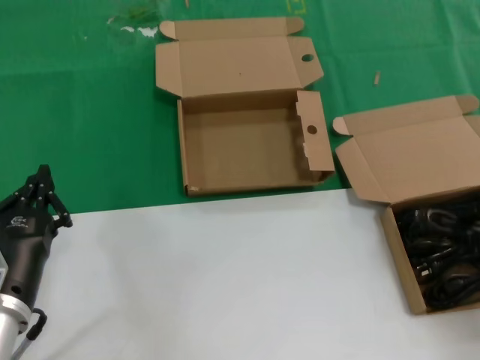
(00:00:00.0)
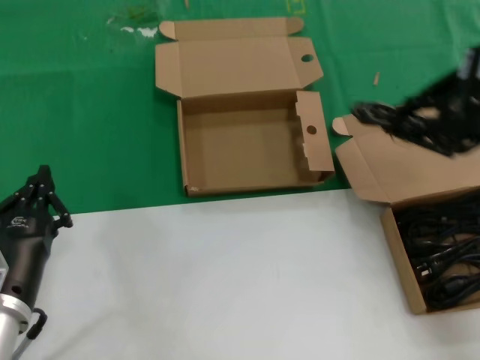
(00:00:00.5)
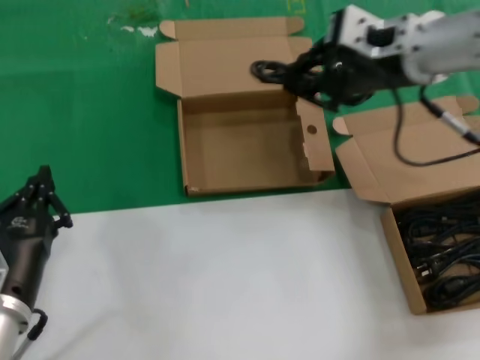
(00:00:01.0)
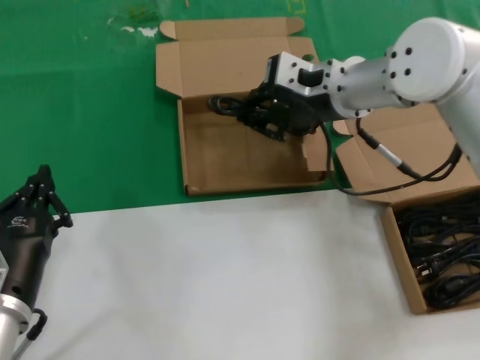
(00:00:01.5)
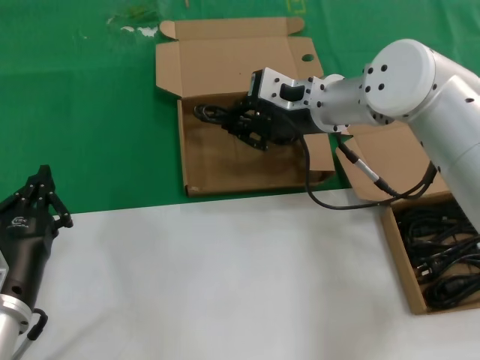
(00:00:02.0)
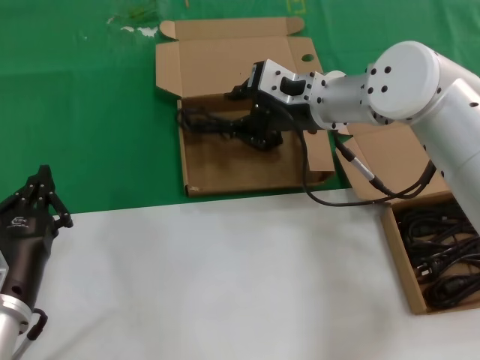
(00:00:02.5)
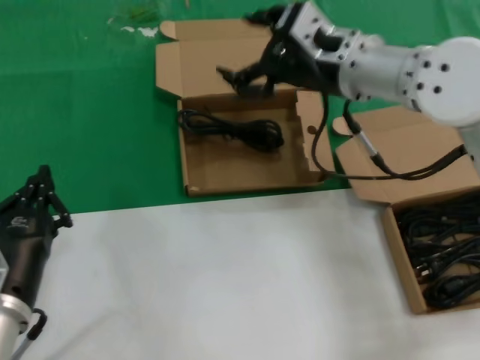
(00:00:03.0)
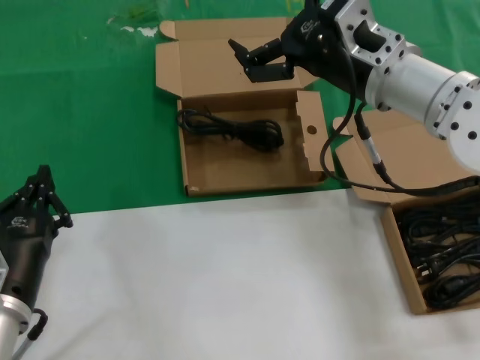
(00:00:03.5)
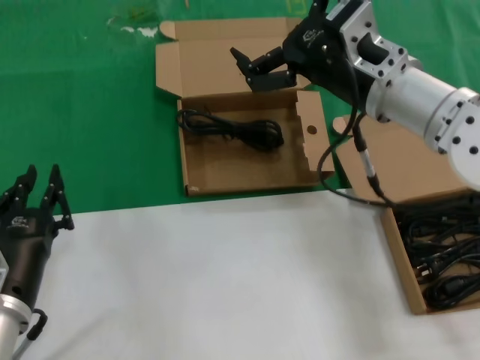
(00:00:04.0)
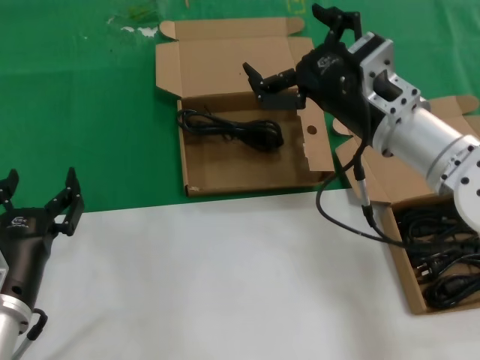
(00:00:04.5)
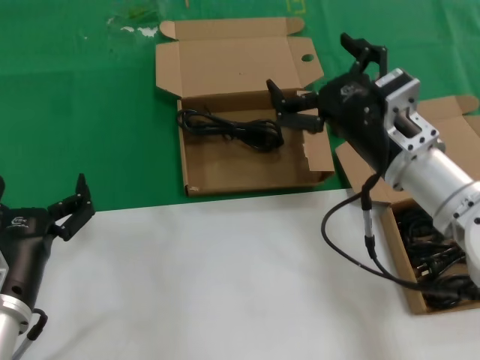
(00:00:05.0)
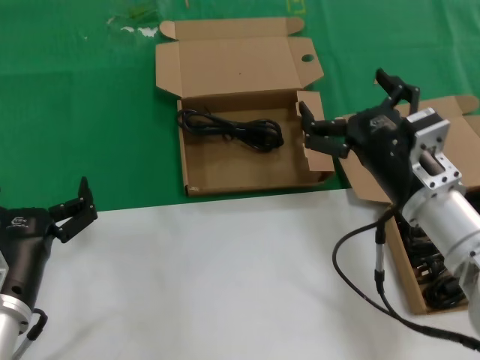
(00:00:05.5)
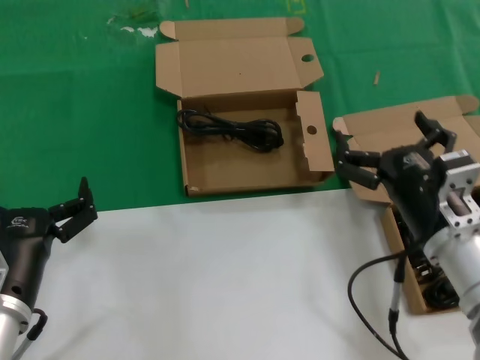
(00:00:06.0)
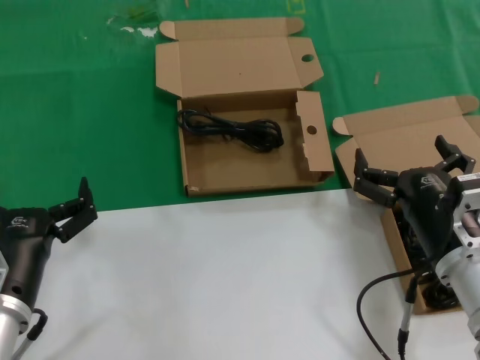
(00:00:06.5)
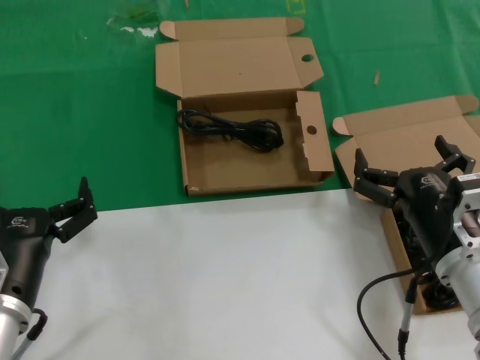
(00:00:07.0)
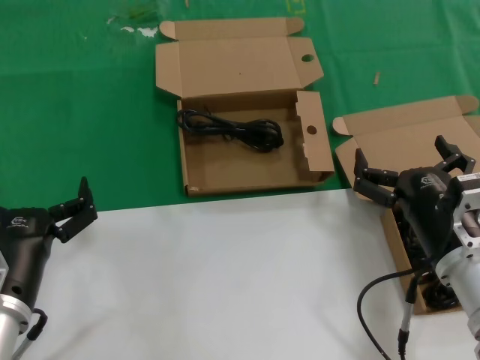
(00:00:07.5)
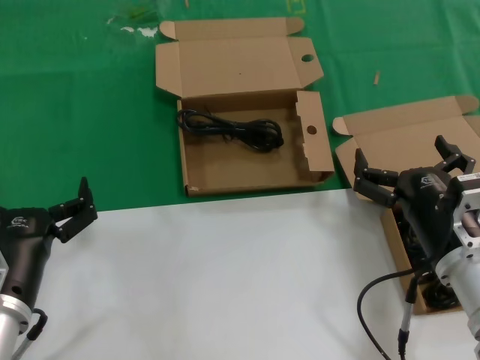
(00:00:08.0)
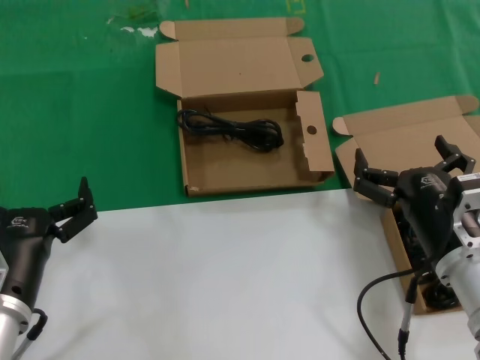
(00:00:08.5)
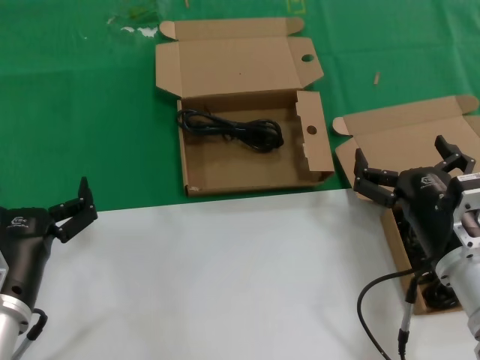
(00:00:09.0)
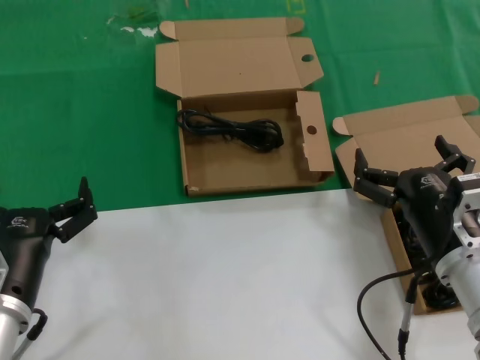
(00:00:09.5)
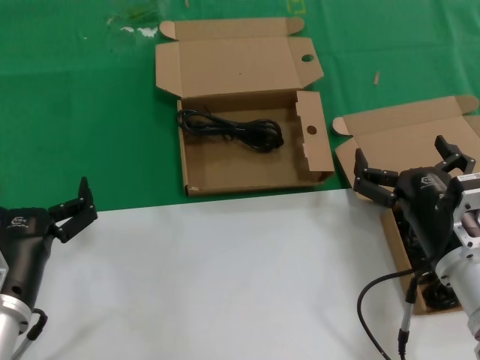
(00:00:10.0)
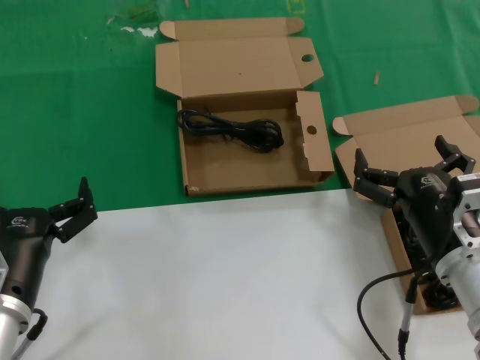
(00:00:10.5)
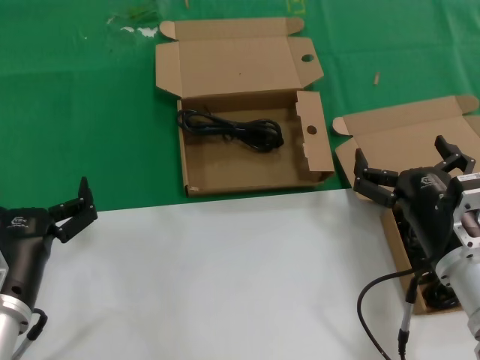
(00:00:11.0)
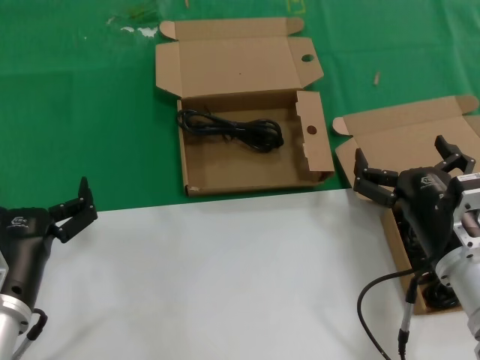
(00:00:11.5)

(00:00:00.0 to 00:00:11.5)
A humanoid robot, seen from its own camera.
Task of the whole recording: take the parts from the box containing them and put them into an empty box.
Step, 00:00:00.0 - 00:00:02.5: Place the data cable in the another box.
00:00:00.0 - 00:00:02.0: The right hand goes approximately 30 cm to the left and forward.
00:00:02.0 - 00:00:04.0: The right hand is displaced backward by about 10 cm.
00:00:04.0 - 00:00:06.0: The right hand heads downward and backward, covering roughly 20 cm.
00:00:06.0 - 00:00:07.5: There are only small adjustments of the hands.
00:00:07.5 - 00:00:11.5: Both hands stay about where they are.

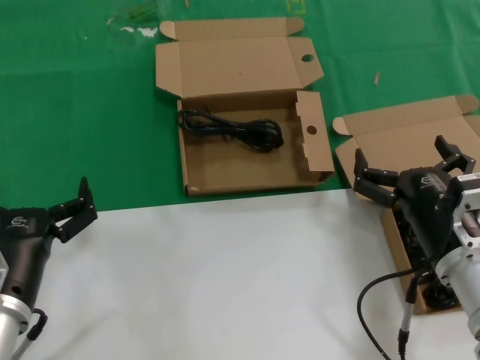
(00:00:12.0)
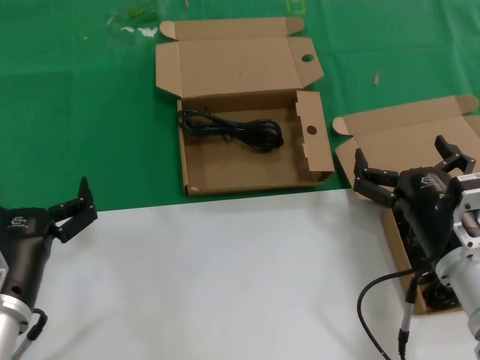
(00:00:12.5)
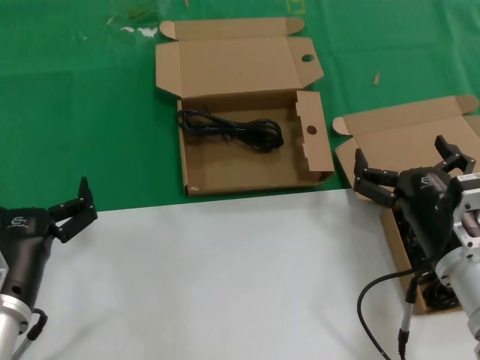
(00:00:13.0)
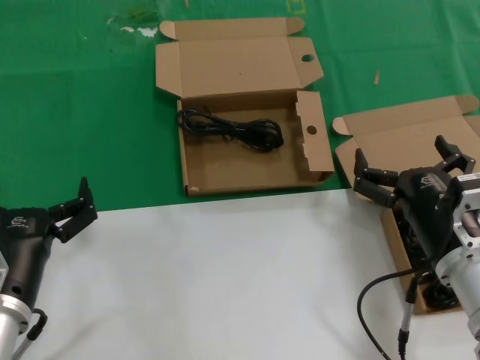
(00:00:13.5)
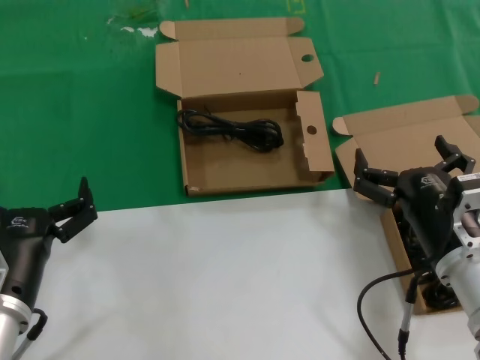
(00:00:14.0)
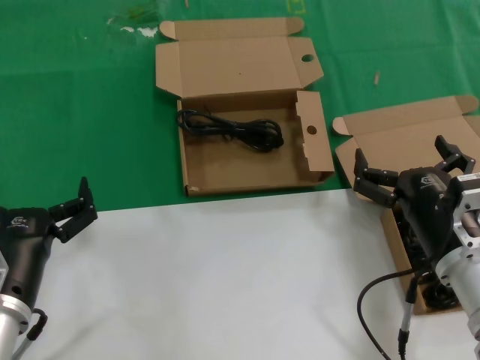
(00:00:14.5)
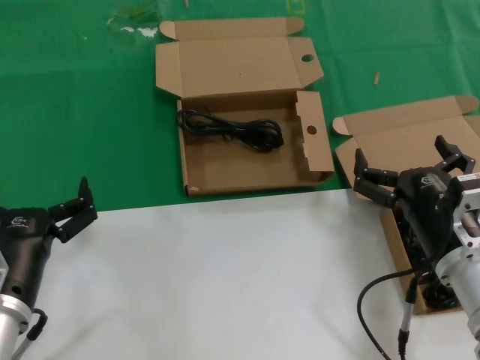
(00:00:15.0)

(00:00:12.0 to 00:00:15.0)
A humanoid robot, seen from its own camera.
Task of the whole recording: take the parts from the box containing them and put them into an empty box.
00:00:12.0 - 00:00:15.0: Both hands stay about where they are.
